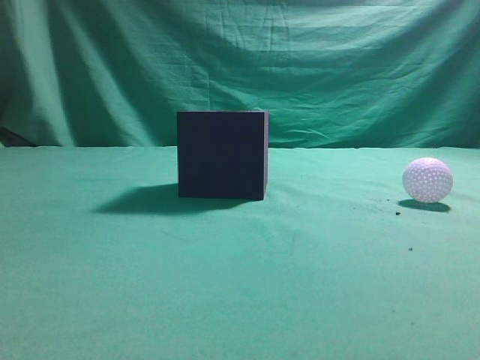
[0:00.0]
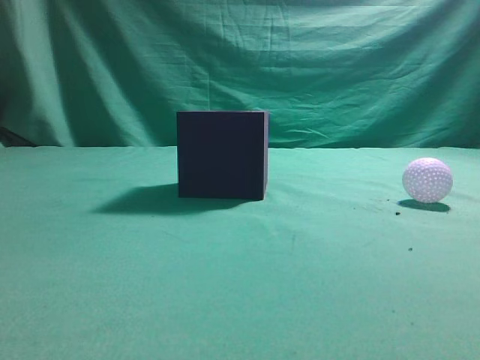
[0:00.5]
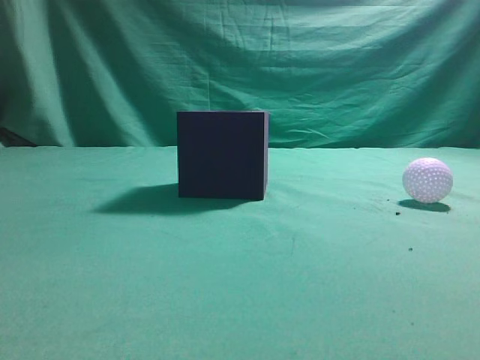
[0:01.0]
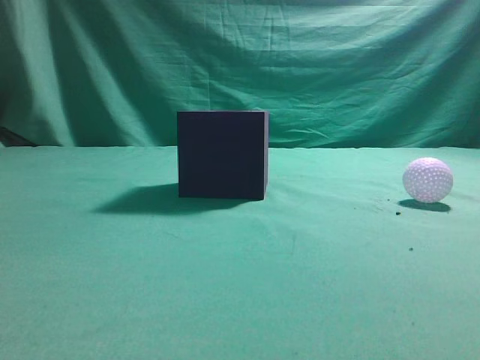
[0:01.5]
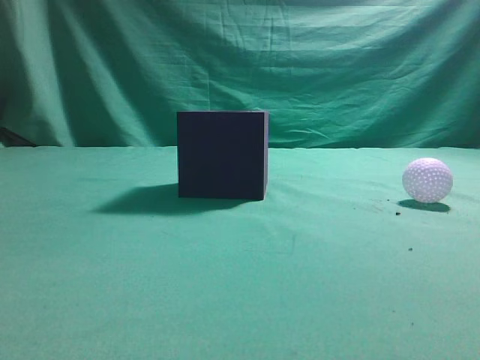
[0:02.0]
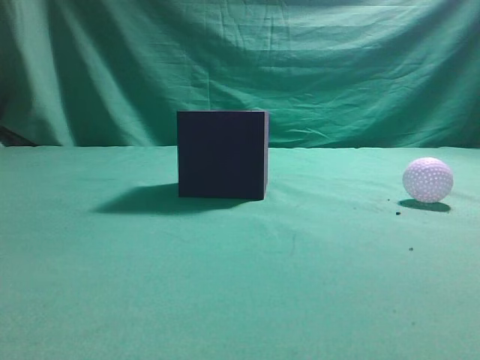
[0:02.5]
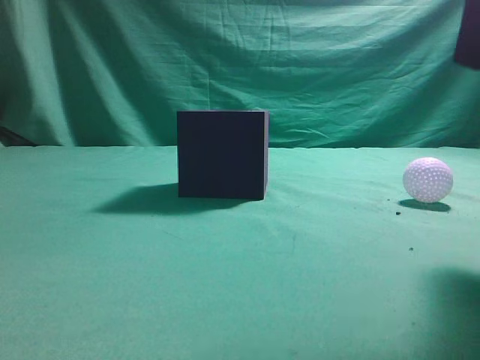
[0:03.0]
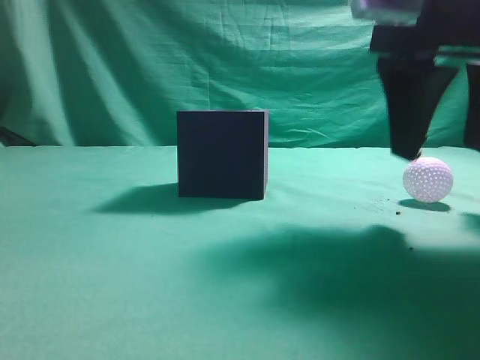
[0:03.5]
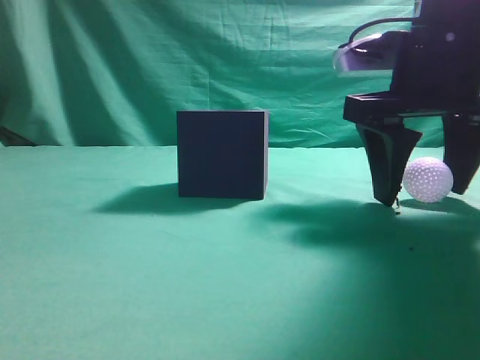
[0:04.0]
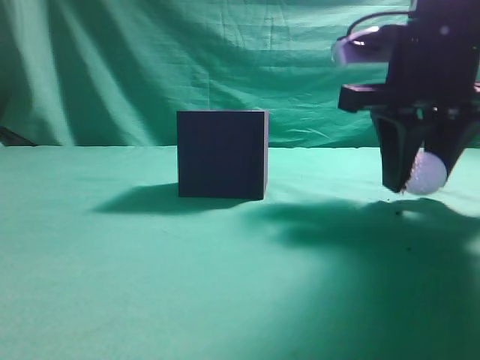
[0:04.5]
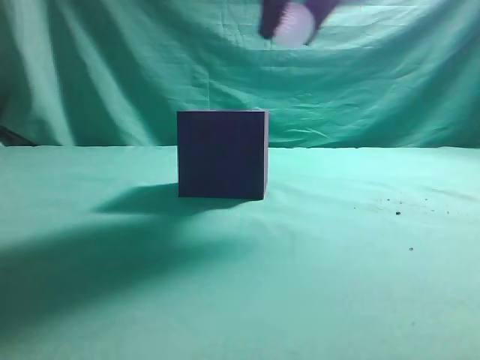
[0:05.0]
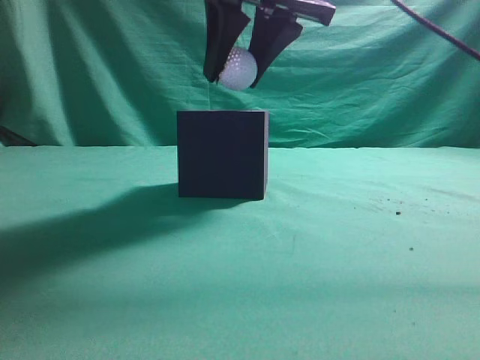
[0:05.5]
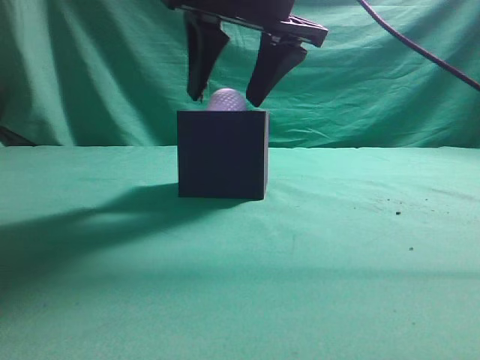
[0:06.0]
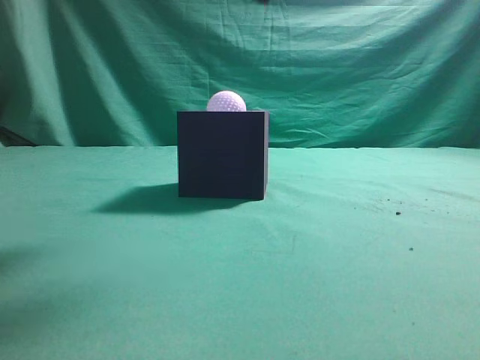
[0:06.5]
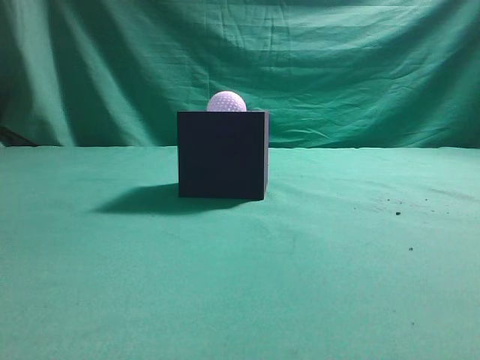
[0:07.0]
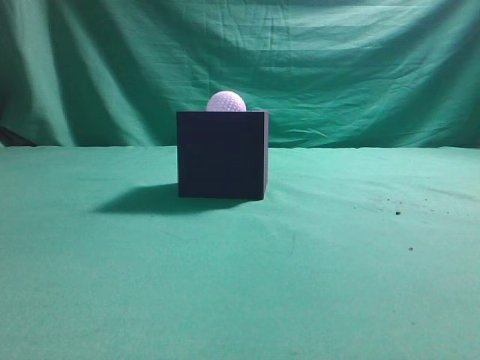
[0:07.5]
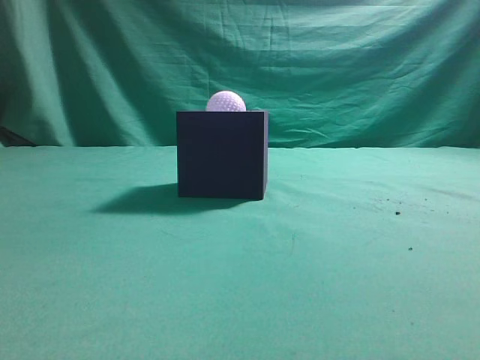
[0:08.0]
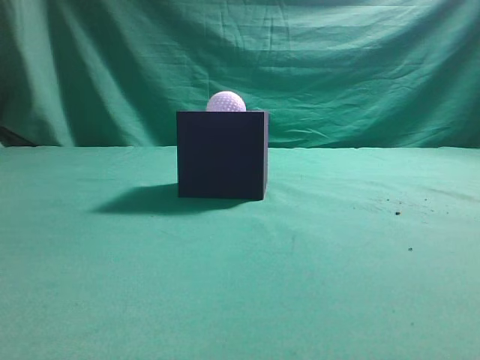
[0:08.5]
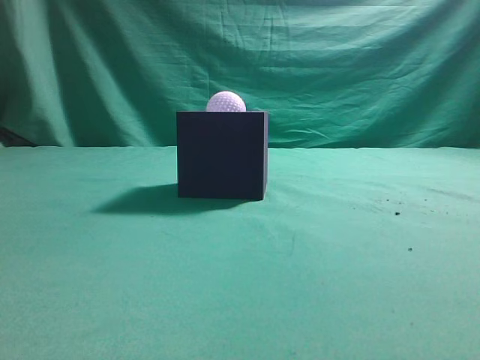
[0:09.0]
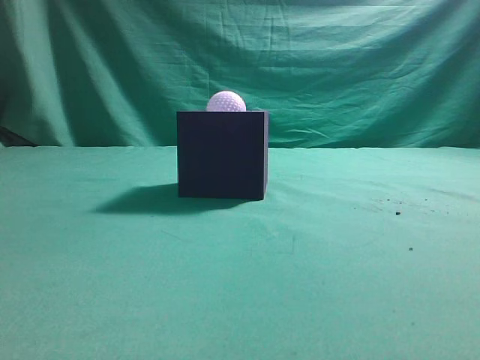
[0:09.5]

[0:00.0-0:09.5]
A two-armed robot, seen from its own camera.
Task of the whole recording: Pick up the ball and place it in the circular groove above the cube.
Step, 0:00.0 to 0:04.5: Grasp the sphere on the table.
Step, 0:05.0 to 0:06.0: Place the sphere into the sphere-shaped recess.
0:02.0 to 0:04.0: The right gripper heads forward and to the left, covering some 25 cm, and opens up.
0:04.0 to 0:05.5: The right gripper moves to the left and upward, approximately 15 cm, and closes up.
0:05.5 to 0:07.5: The right gripper heads backward, to the right and upward, covering roughly 25 cm, and closes up.
